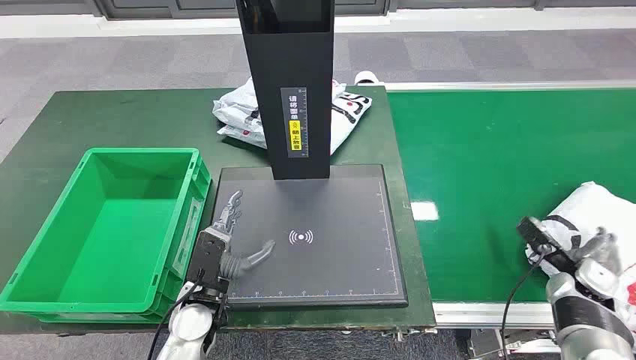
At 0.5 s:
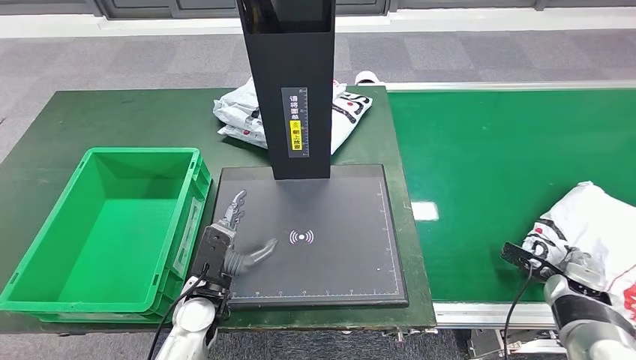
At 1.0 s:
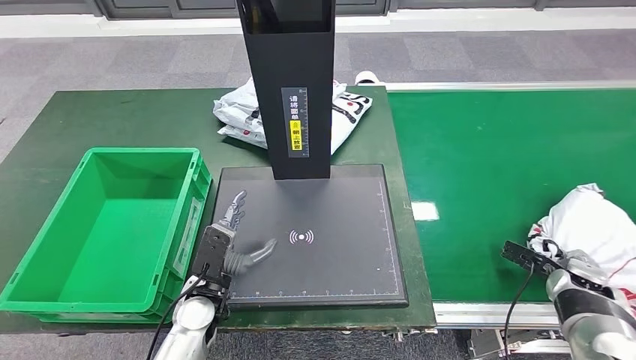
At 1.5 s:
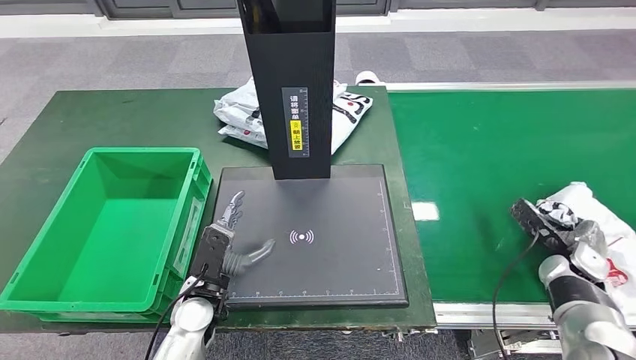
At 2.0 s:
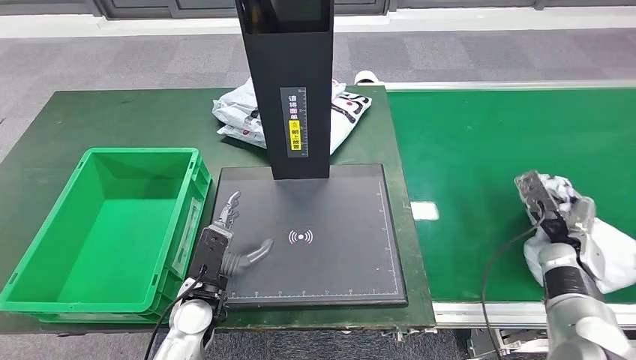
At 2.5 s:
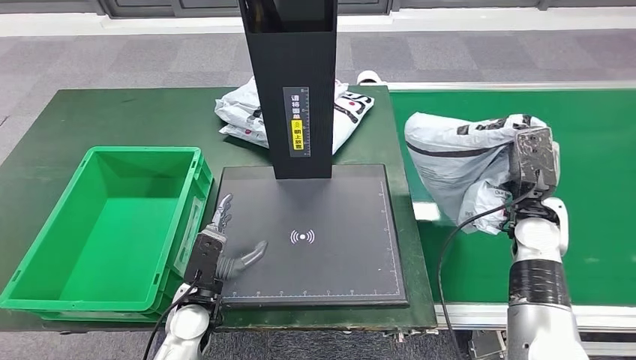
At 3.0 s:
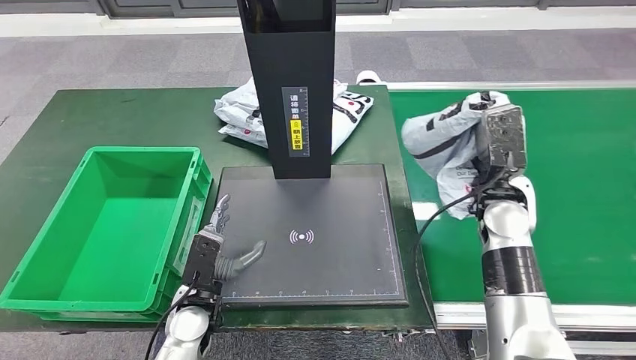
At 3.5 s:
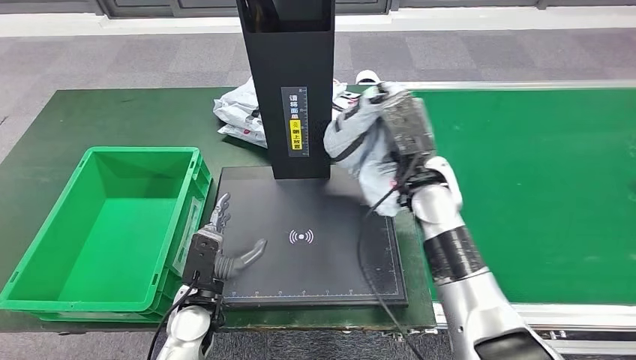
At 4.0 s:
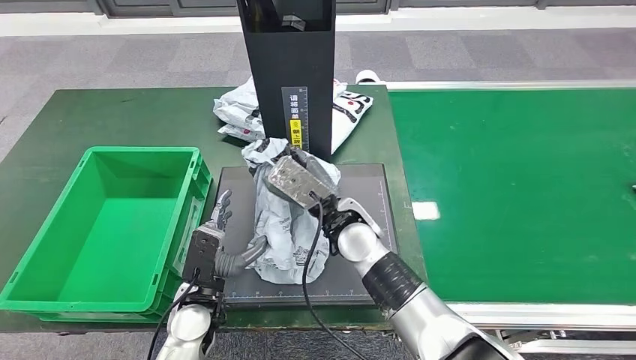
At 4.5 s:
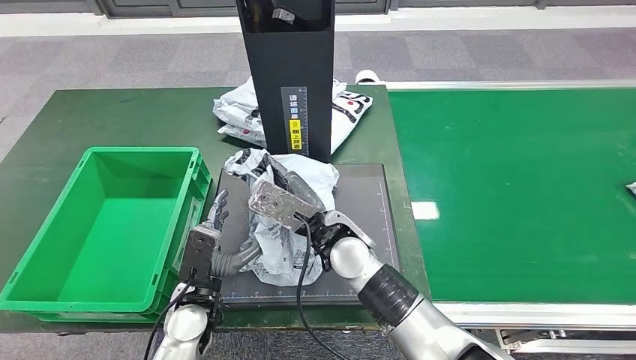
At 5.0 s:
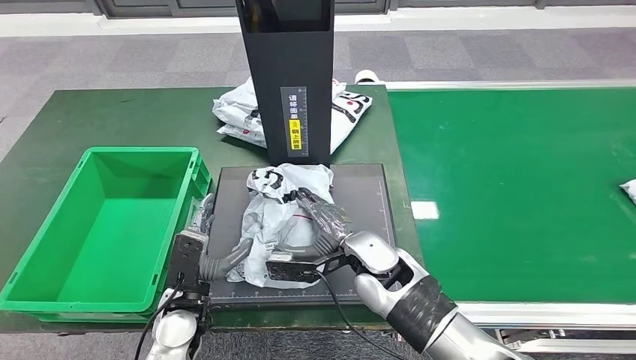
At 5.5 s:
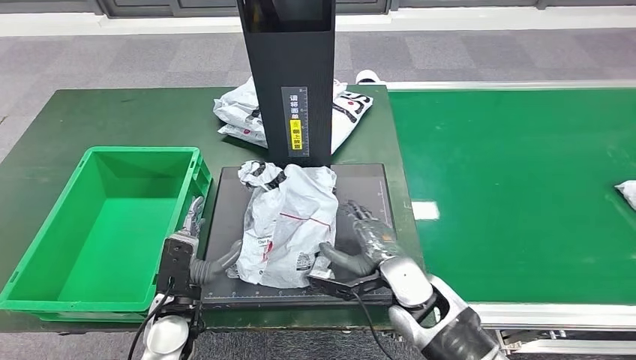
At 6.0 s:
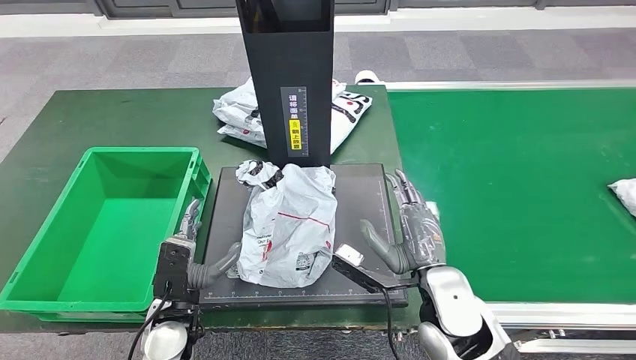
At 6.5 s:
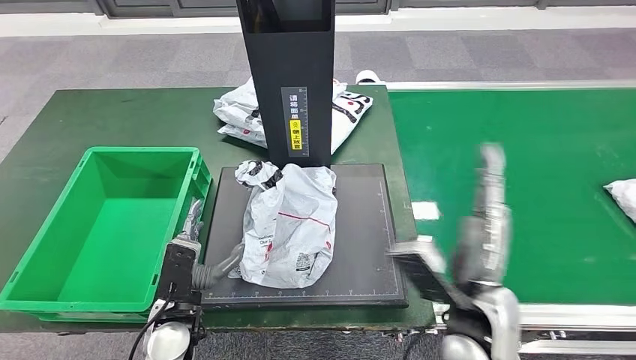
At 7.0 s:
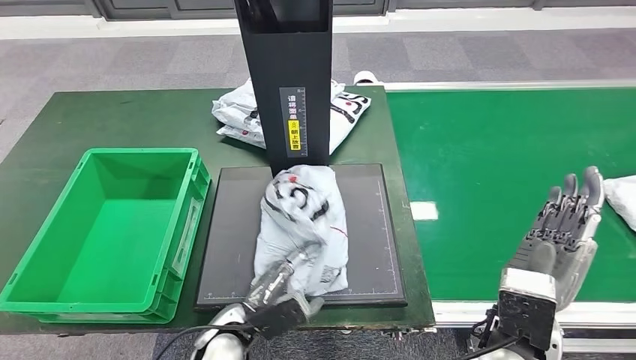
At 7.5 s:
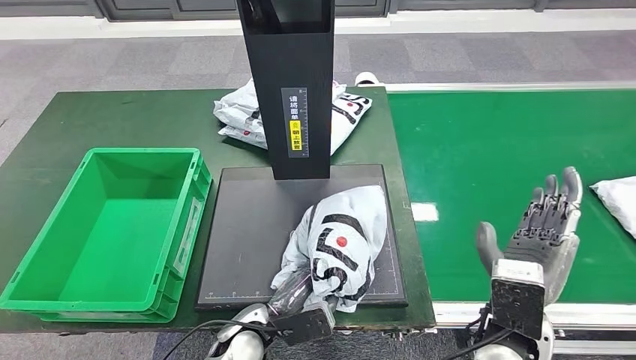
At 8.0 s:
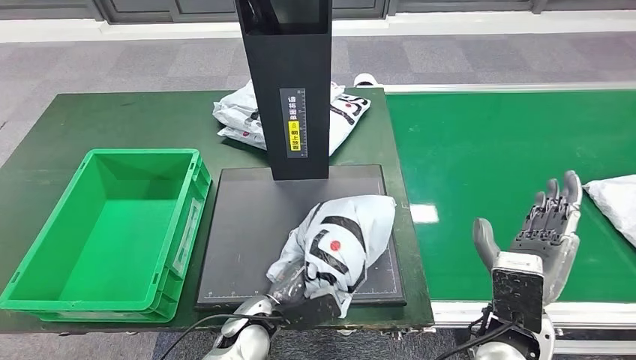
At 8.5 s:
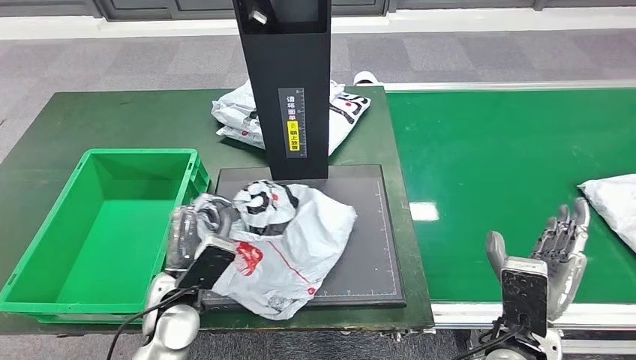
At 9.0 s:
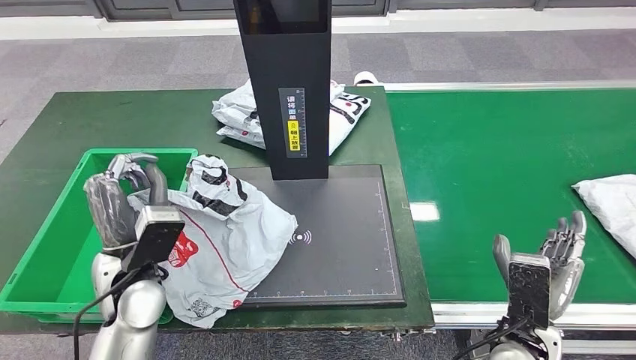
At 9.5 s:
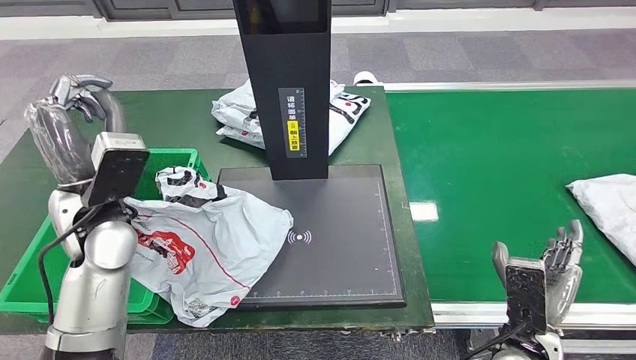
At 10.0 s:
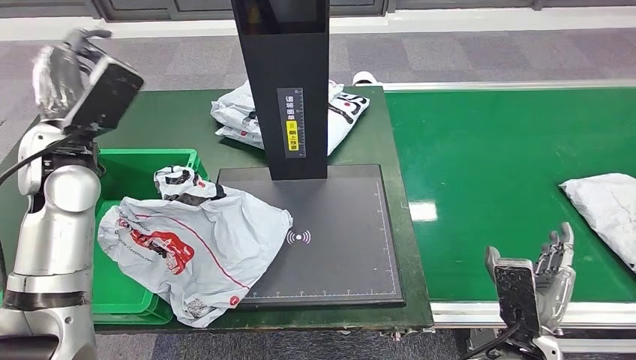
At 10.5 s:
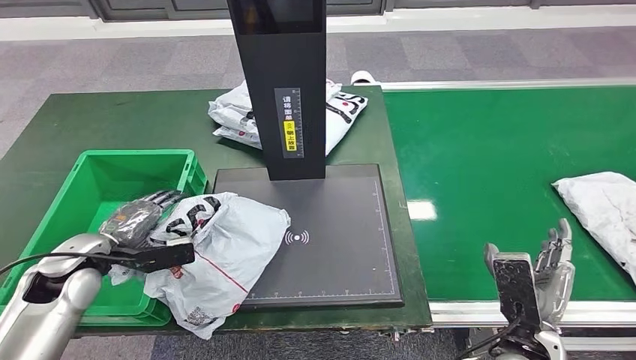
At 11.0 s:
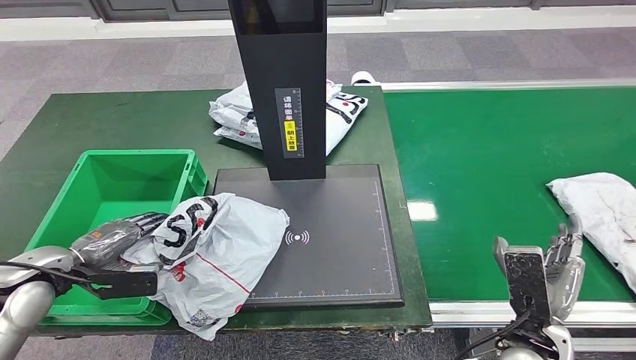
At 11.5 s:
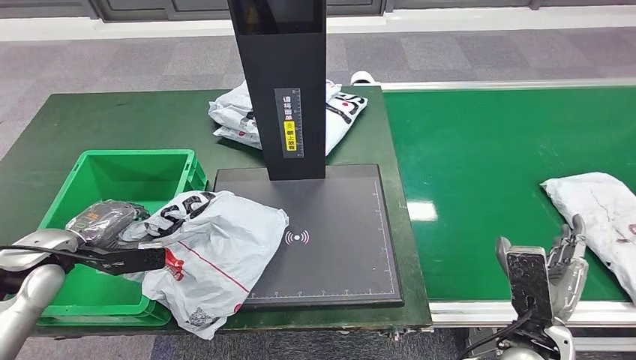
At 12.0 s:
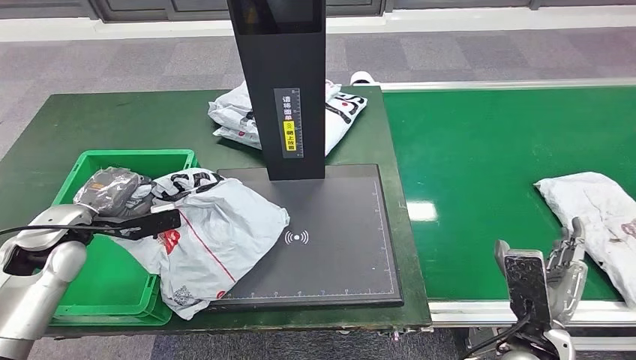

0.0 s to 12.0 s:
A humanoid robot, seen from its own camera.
Step, 0.0 to 3.0 s: Take the parcel off the conveyor belt.
Step, 3.5 to 5.5 s: Place the parcel onto the inbound machine.
4.0 to 6.0 s: The right hand travels to the right and backward by approximately 15 cm.

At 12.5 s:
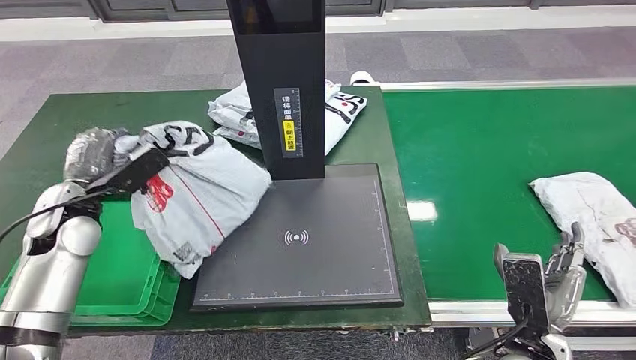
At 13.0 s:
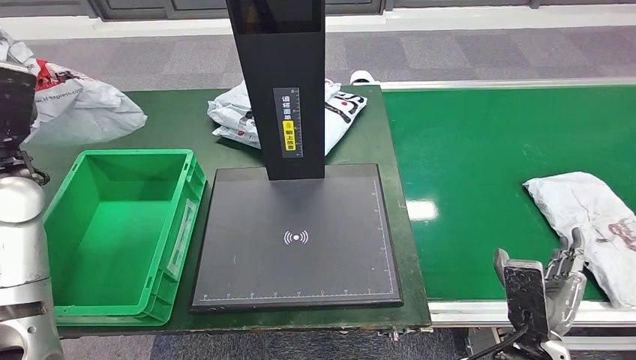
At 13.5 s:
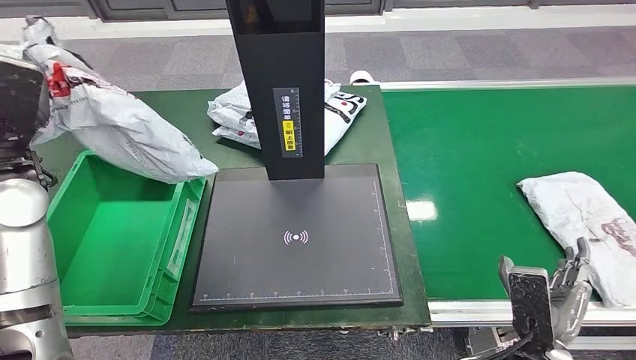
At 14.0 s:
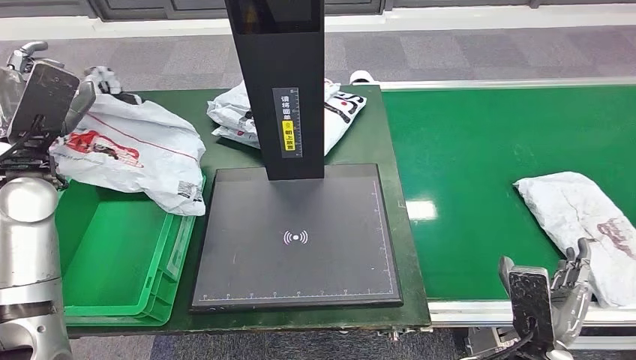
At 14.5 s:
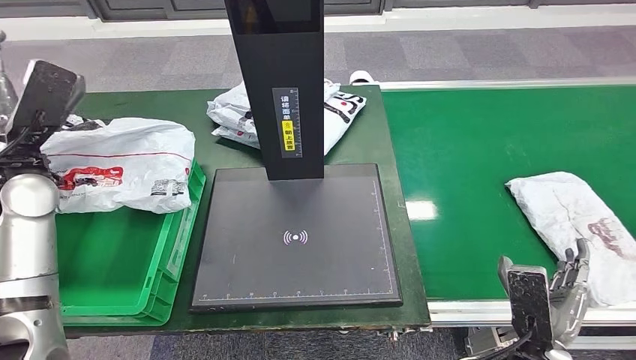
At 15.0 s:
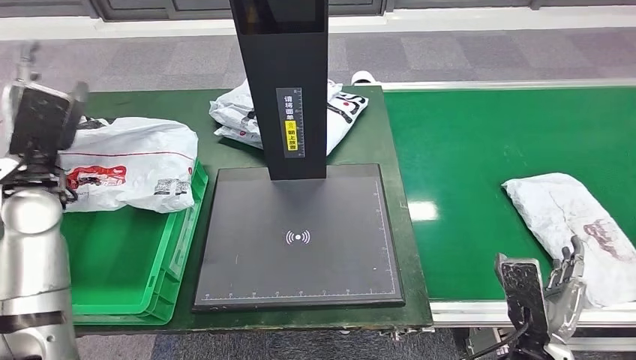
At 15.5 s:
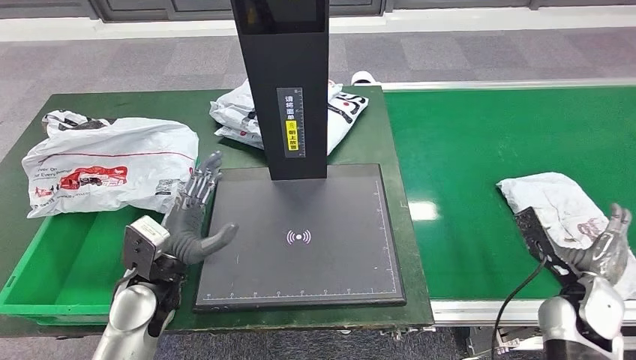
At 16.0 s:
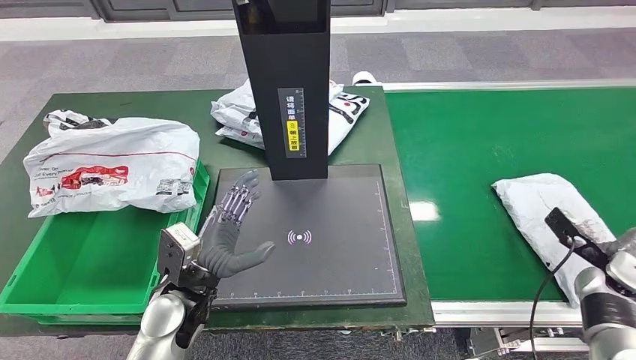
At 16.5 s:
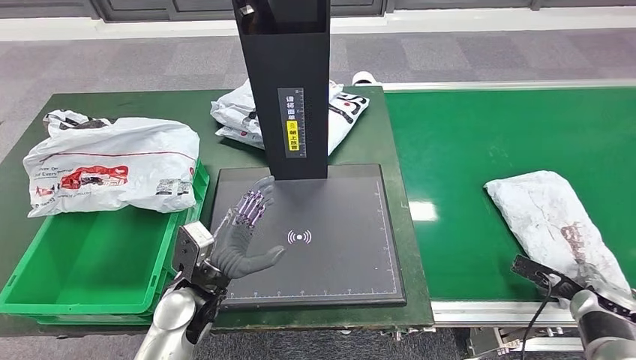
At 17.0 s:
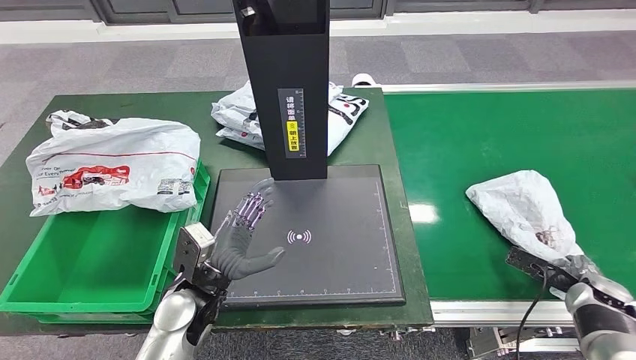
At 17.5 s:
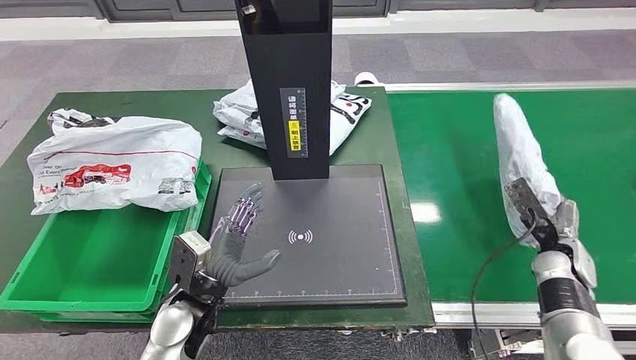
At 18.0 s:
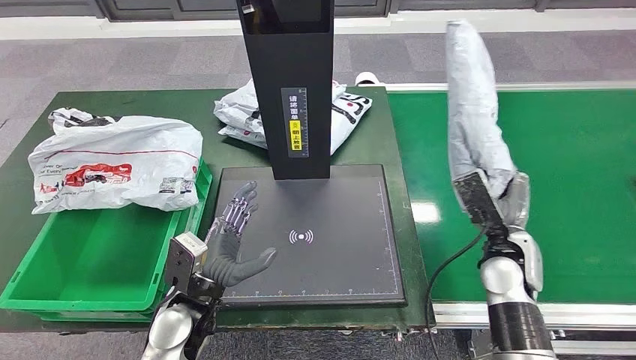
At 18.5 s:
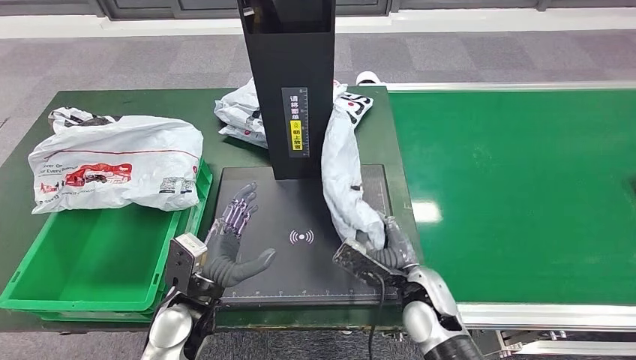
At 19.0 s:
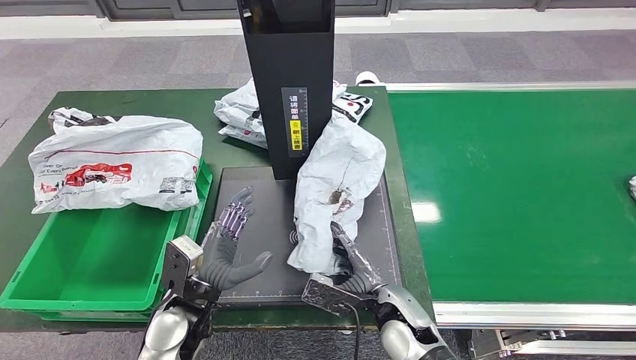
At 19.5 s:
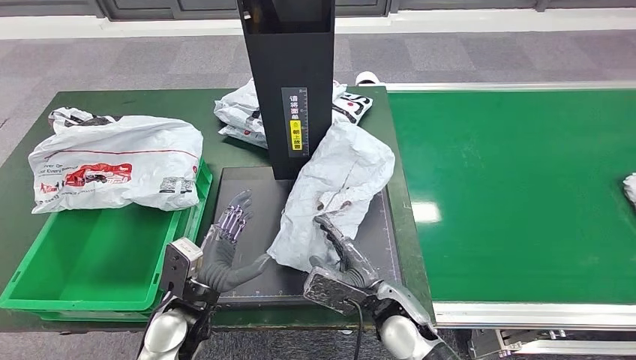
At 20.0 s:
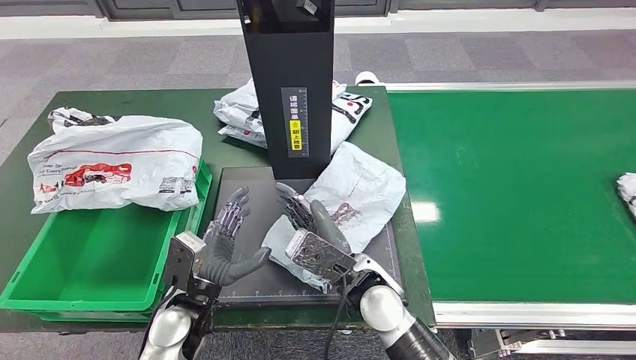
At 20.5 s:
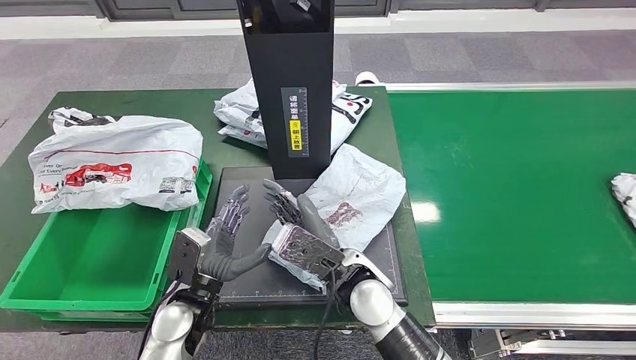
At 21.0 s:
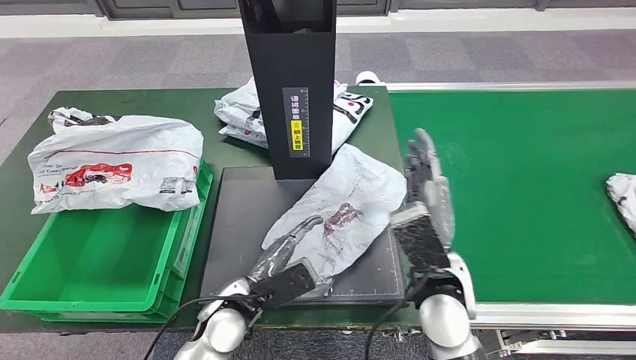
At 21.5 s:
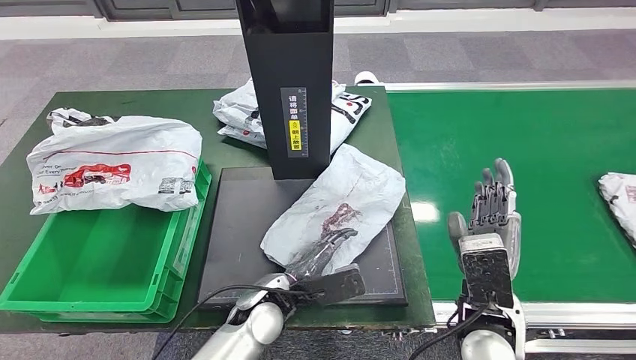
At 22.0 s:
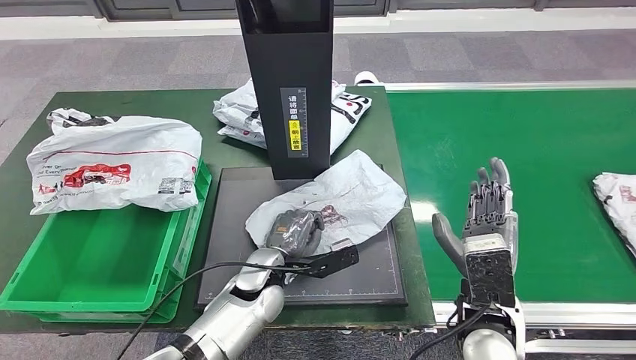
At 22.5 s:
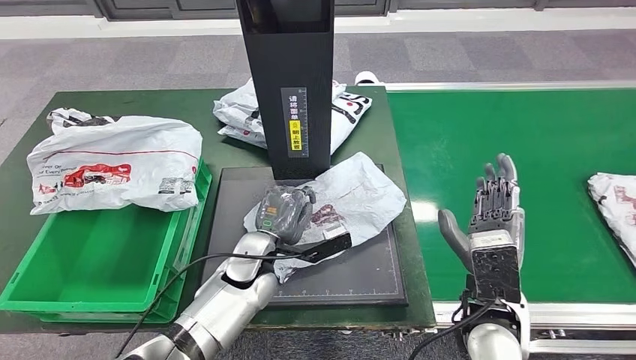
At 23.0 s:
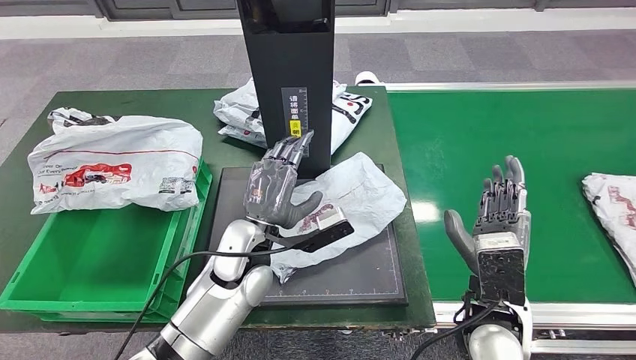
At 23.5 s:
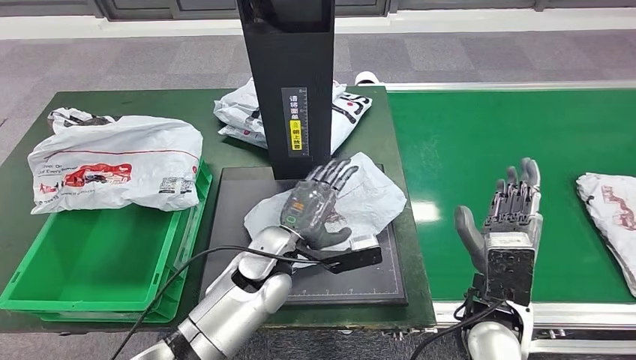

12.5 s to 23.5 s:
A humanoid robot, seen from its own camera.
Step, 14.0 to 16.0 s: Put the parcel inside the courier box.
Step, 16.5 to 18.0 s: Pick up the parcel from the conveyor belt.
Step, 18.5 to 21.5 s: Place the parcel onto the inbound machine.
18.0 to 20.0 s: The right hand moves to the left, some 25 cm.
20.0 to 21.5 s: Both hands travel together to the right, approximately 15 cm.
21.5 to 23.5 s: The left hand is displaced upward and forward by about 10 cm.
